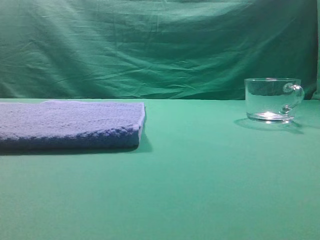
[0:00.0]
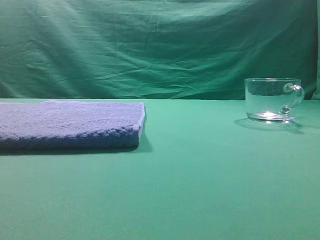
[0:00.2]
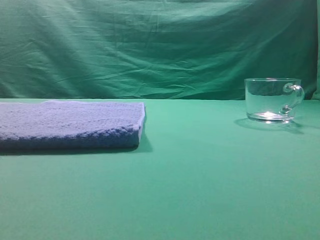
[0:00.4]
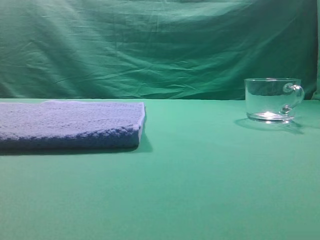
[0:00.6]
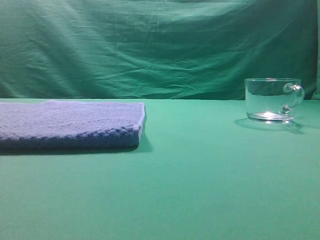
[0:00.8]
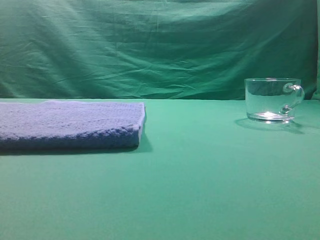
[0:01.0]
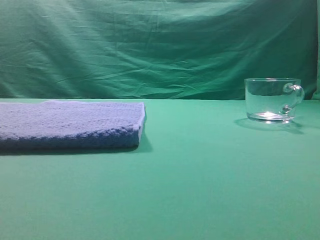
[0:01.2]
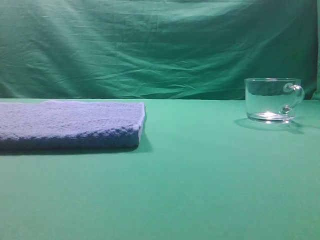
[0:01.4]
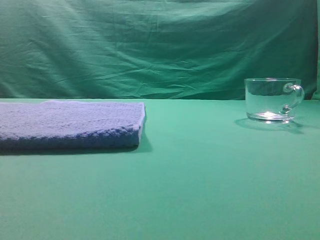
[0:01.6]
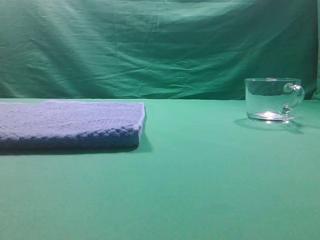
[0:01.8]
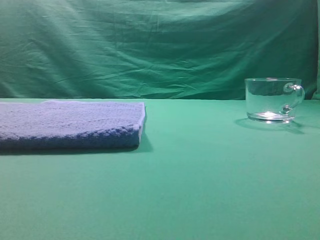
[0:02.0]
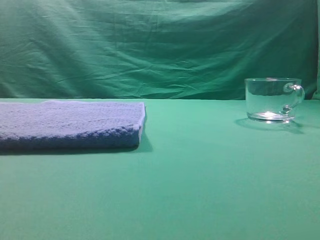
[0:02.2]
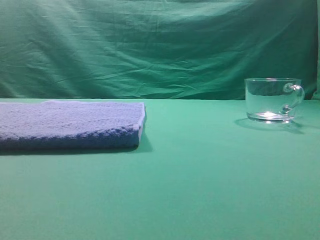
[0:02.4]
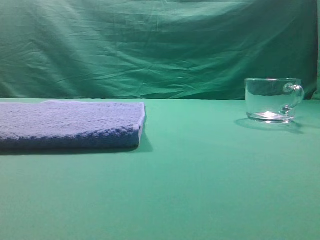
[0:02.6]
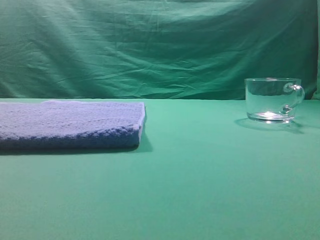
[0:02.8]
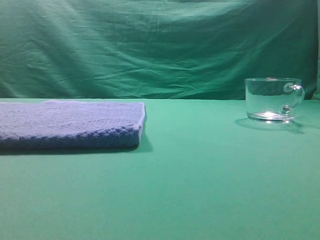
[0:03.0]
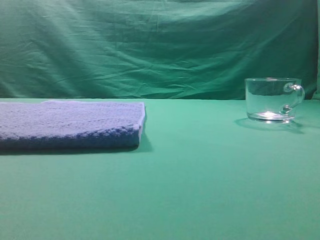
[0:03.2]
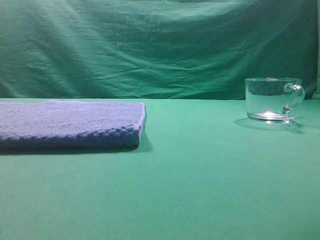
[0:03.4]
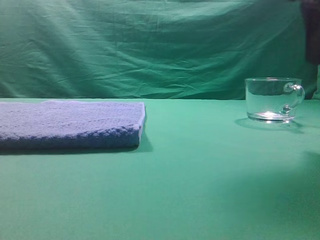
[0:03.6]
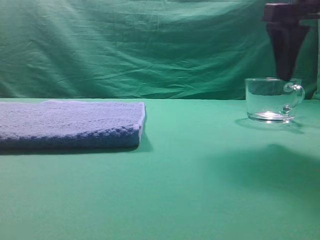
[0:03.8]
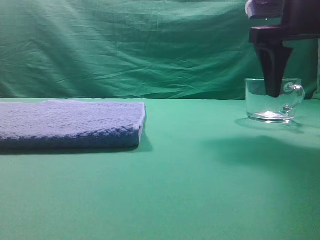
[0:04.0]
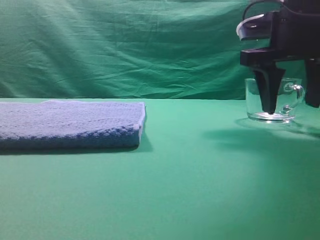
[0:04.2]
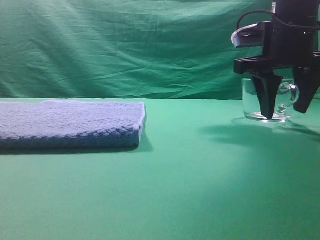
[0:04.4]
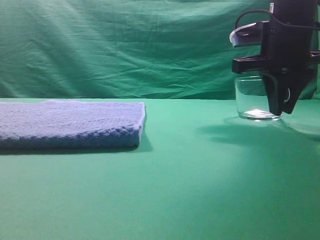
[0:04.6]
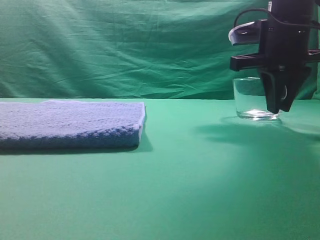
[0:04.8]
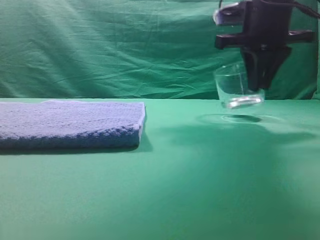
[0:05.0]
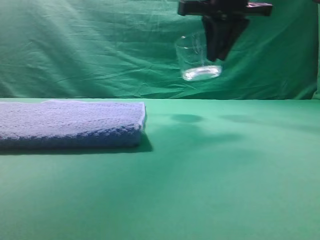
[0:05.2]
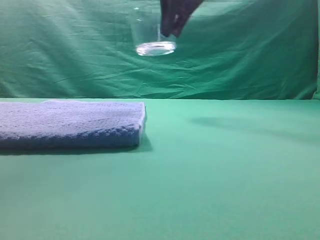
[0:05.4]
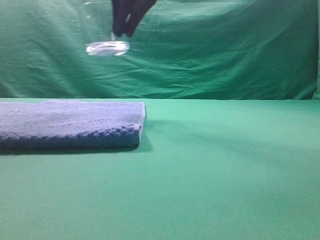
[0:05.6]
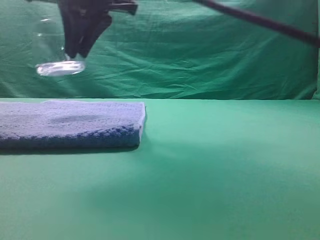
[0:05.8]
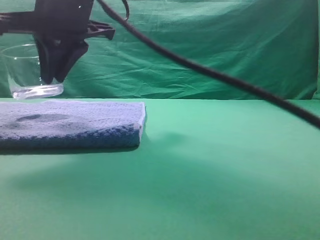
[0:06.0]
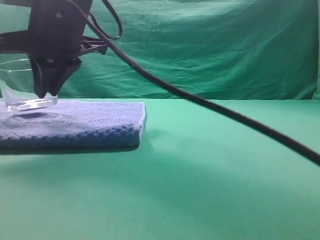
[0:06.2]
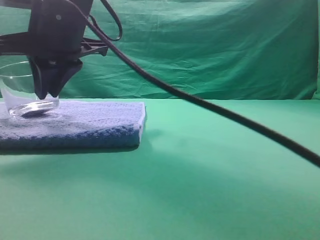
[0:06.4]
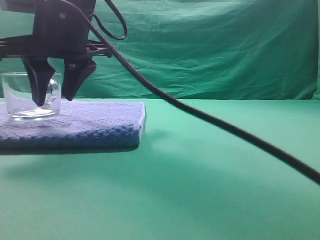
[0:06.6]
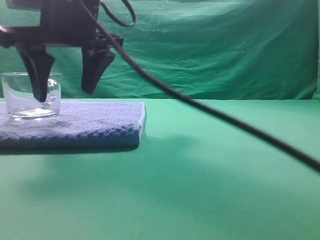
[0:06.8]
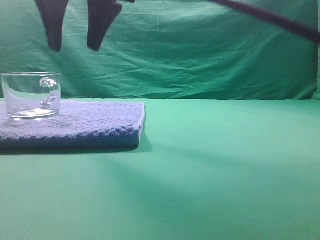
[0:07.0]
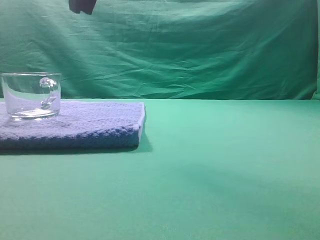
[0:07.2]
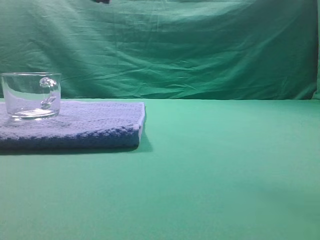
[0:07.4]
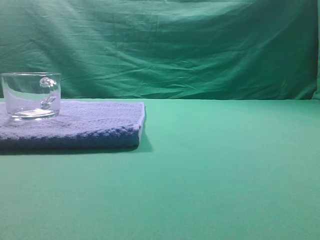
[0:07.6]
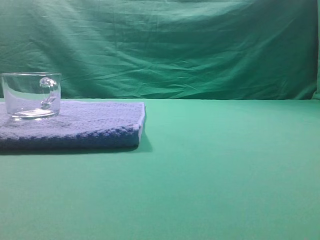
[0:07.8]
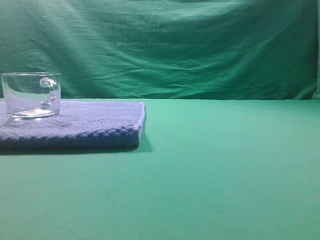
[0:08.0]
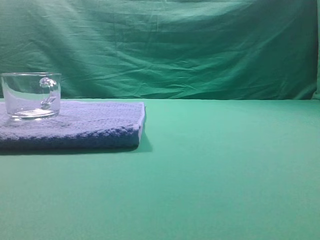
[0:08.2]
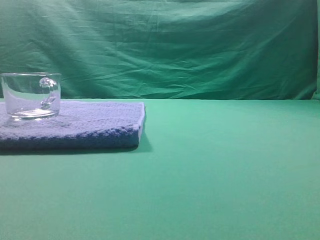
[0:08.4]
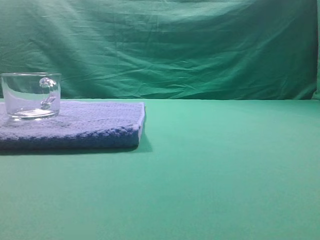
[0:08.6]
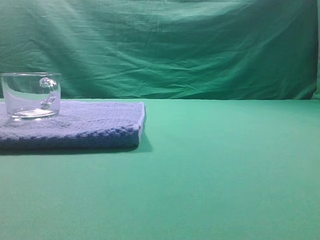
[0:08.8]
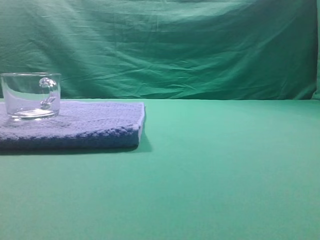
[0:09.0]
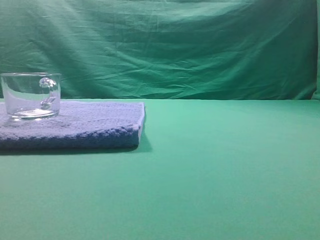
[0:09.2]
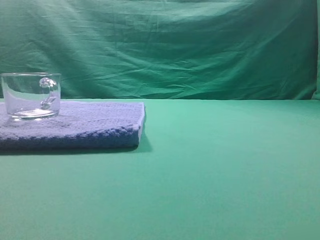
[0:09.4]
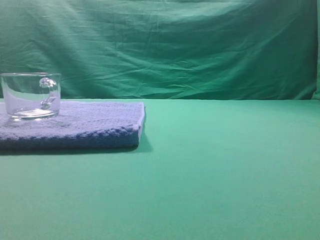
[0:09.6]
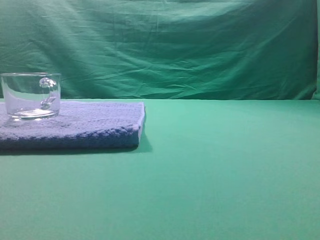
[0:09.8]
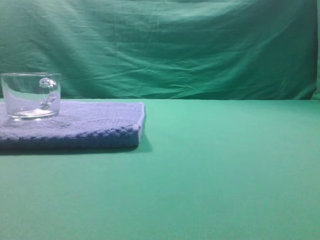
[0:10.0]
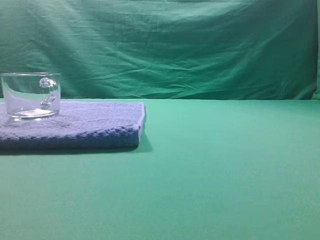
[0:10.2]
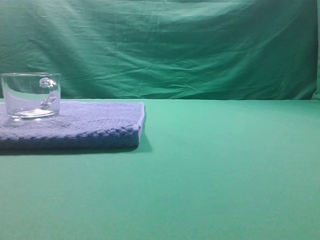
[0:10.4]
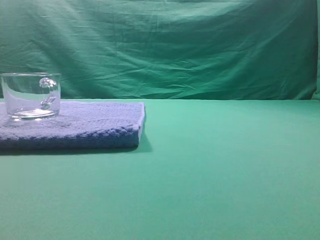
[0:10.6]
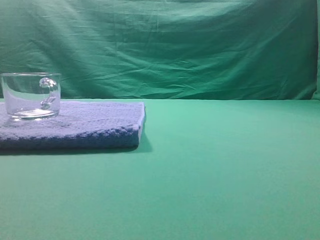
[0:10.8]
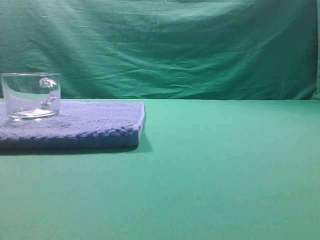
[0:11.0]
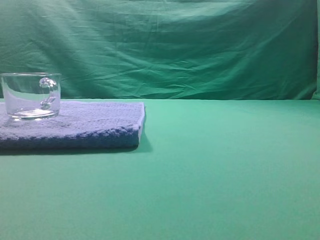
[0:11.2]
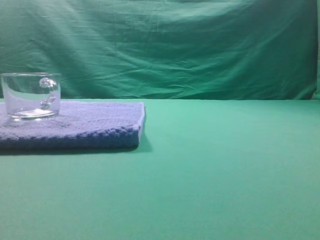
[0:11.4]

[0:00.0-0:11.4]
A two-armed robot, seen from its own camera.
Task of the whole recording: grasp the transparent glass cup and place it within the blue towel.
Step, 0:00.0 to 0:05.0: Grasp the transparent glass cup.
Step, 0:05.2 to 0:07.0: Place the glass cup on the blue zone.

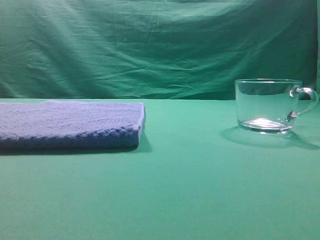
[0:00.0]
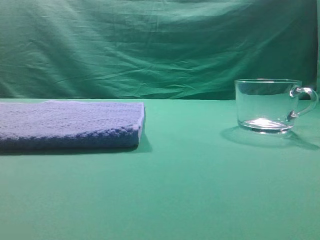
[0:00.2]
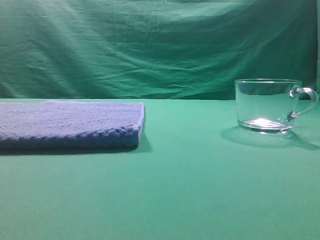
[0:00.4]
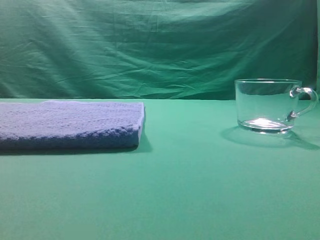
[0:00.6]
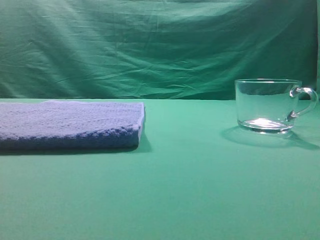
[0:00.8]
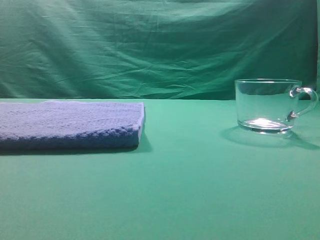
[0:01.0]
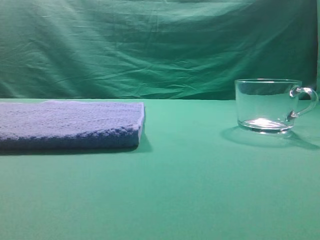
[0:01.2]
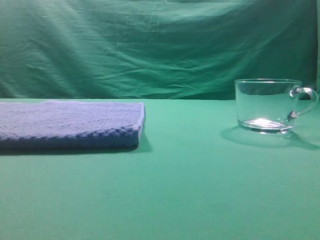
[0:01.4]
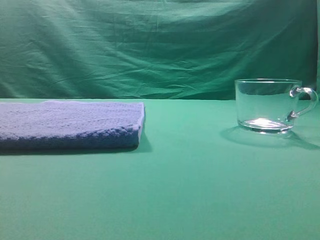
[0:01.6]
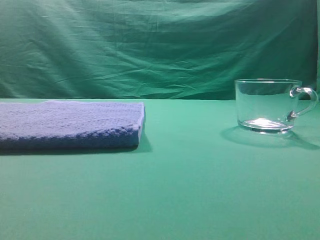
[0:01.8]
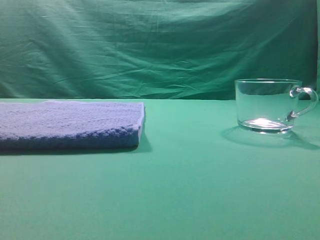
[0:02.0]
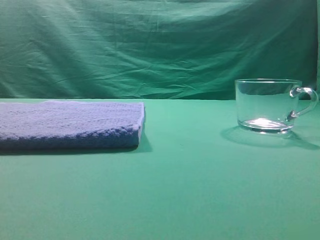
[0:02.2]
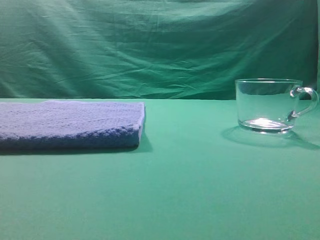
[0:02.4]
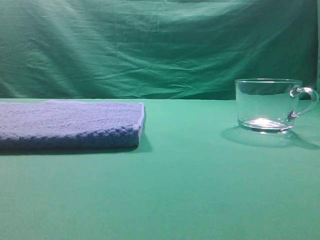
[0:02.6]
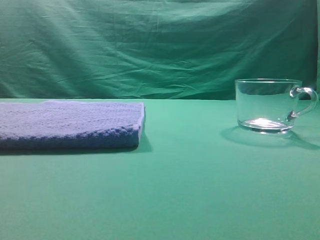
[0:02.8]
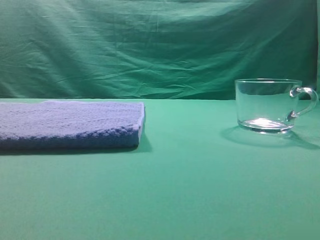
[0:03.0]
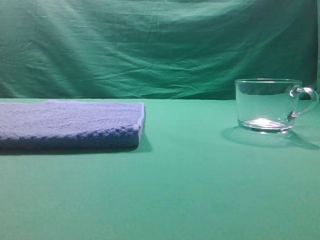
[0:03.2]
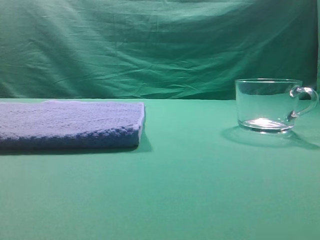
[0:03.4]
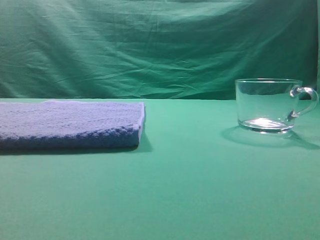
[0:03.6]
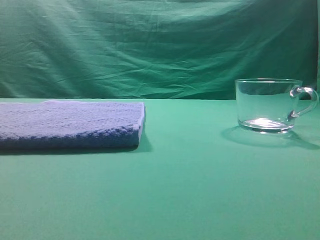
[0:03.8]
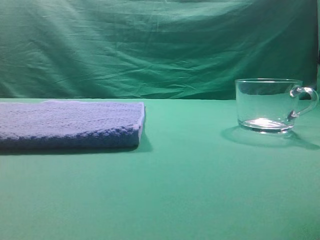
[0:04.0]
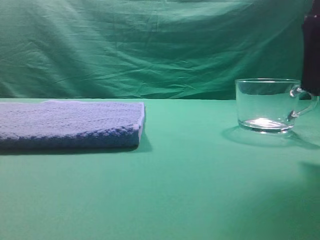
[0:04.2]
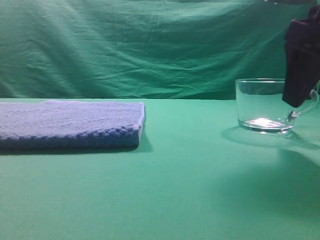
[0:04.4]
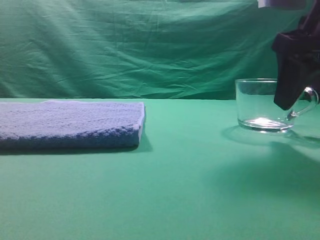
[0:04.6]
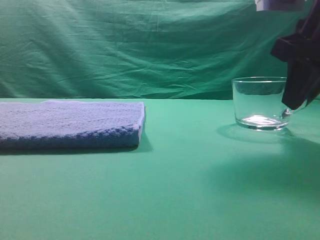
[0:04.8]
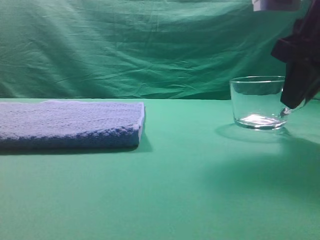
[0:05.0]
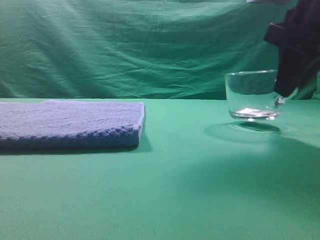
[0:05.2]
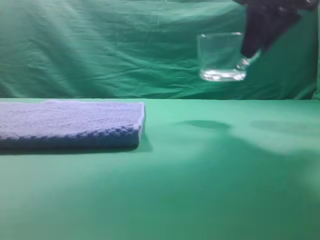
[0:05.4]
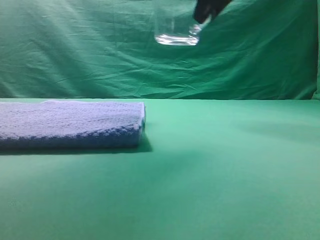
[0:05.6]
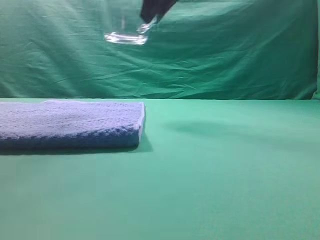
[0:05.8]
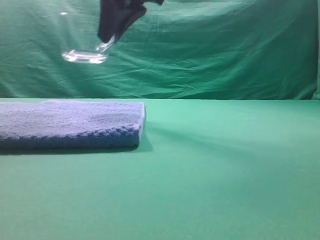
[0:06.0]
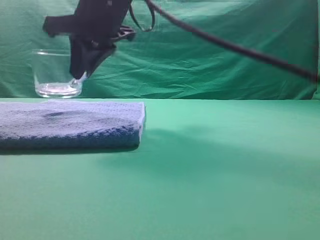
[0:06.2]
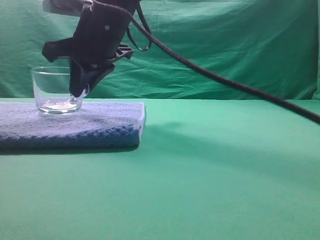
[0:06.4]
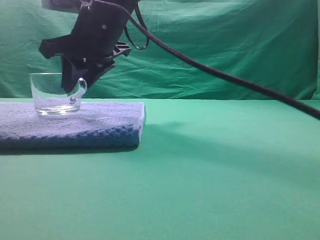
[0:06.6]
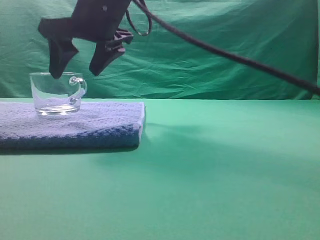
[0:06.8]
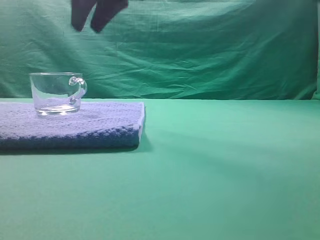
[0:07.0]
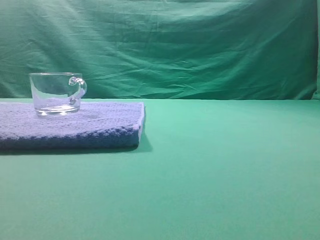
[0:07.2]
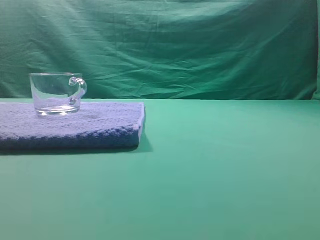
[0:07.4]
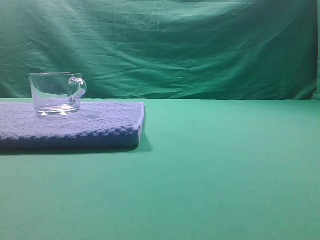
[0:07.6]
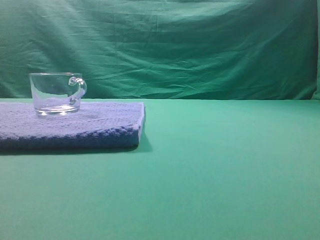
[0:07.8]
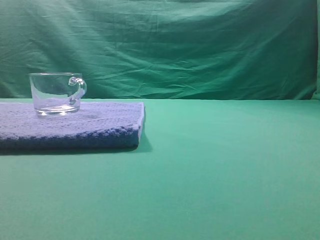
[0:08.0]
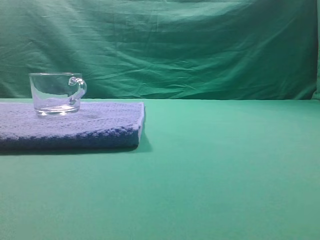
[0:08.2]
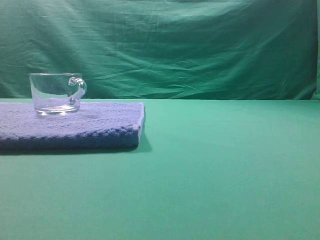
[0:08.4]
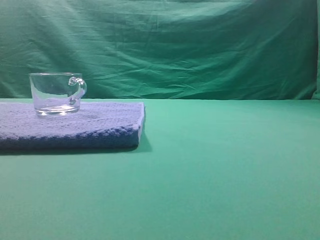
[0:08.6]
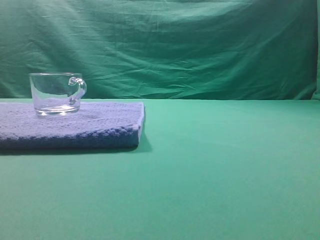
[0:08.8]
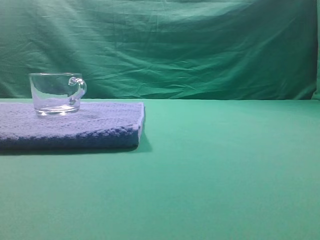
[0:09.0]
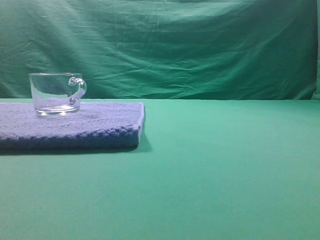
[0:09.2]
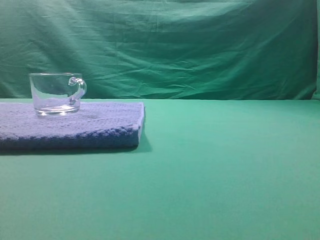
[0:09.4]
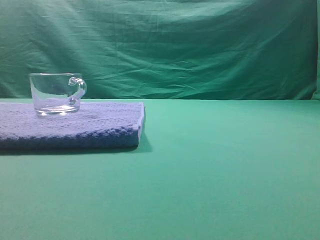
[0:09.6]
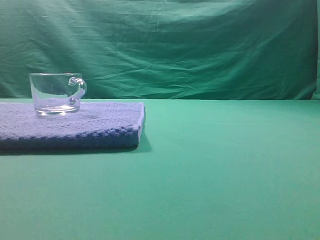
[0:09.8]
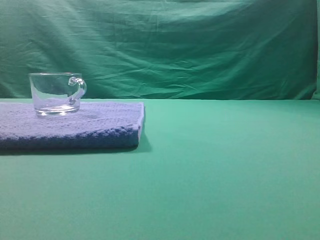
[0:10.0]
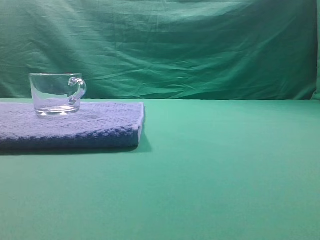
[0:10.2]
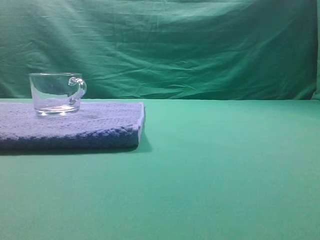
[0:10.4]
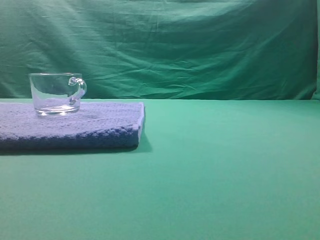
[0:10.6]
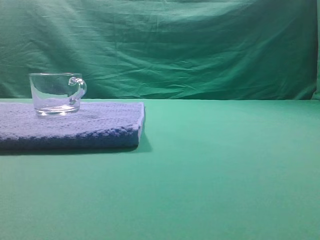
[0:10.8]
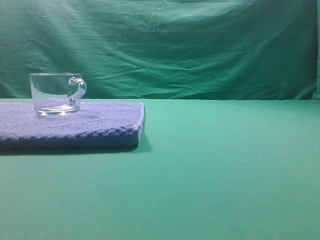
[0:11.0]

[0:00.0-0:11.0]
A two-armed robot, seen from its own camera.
Task of the whole recording: grasp the transparent glass cup and place it within the blue towel.
Step, 0:00.0 to 0:05.2: Grasp the transparent glass cup.
Step, 0:05.4 to 0:06.8: Place the glass cup on the blue zone.
